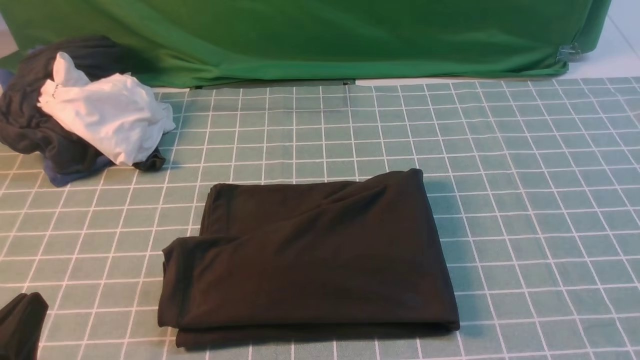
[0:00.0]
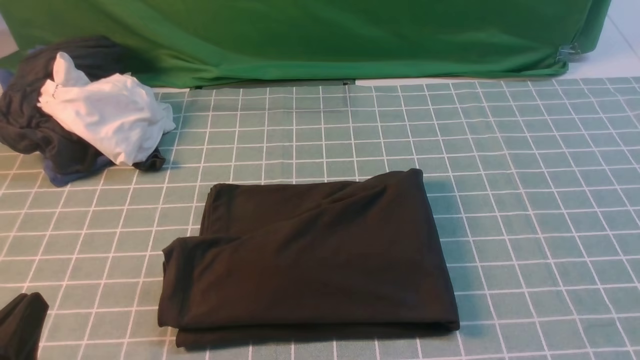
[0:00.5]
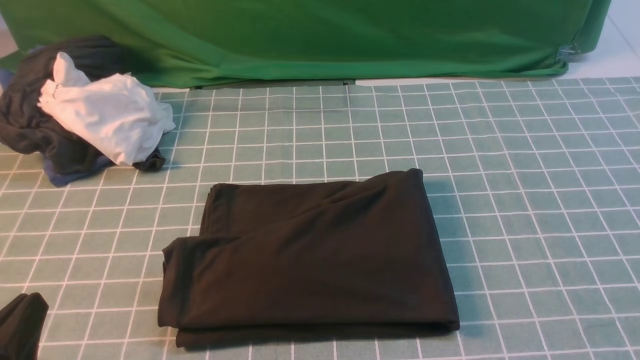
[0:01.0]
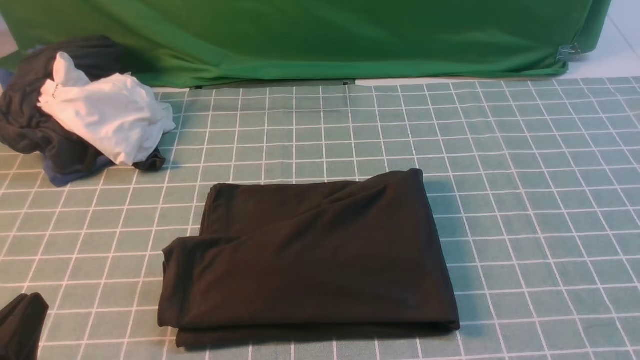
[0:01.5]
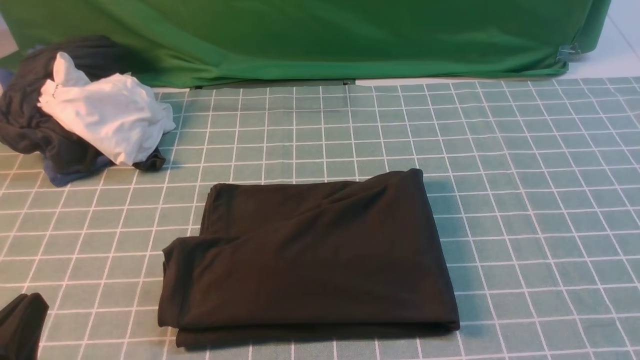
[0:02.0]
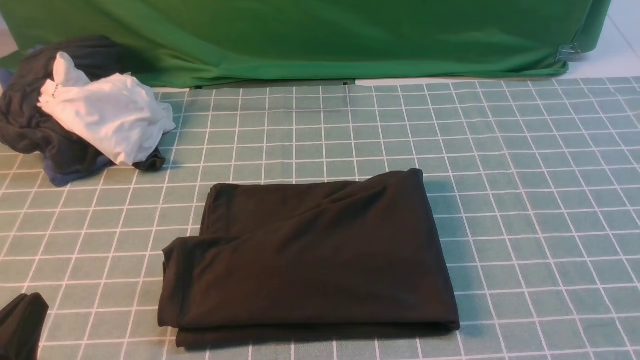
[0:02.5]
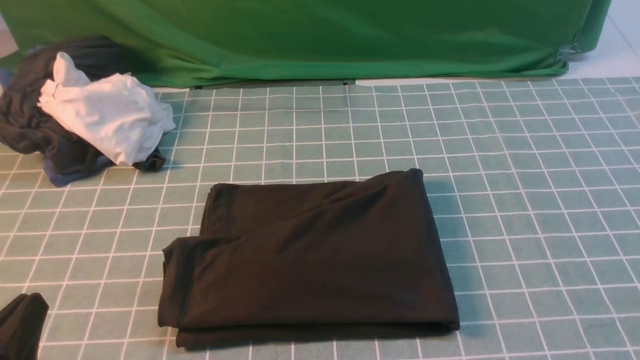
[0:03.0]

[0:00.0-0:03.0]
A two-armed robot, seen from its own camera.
0:01.5 to 0:03.0: Both grippers stay about where they are.

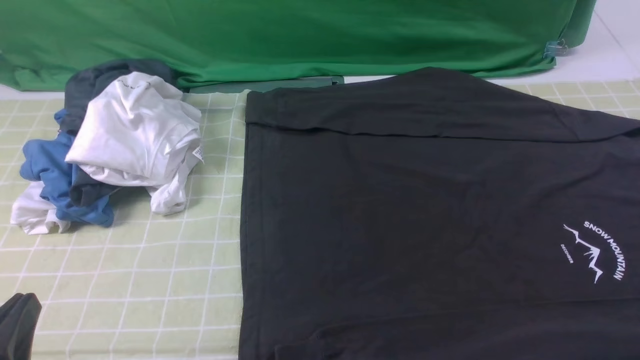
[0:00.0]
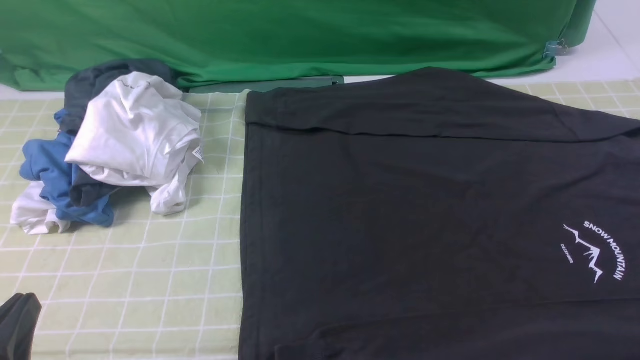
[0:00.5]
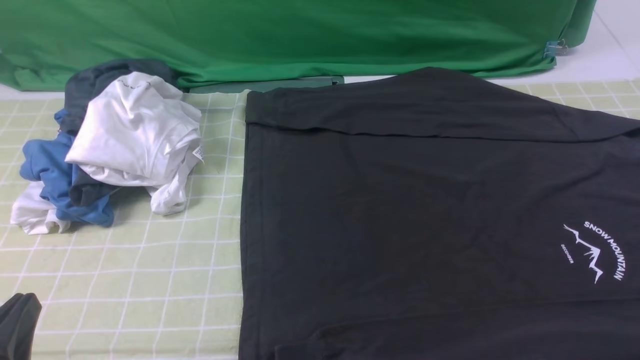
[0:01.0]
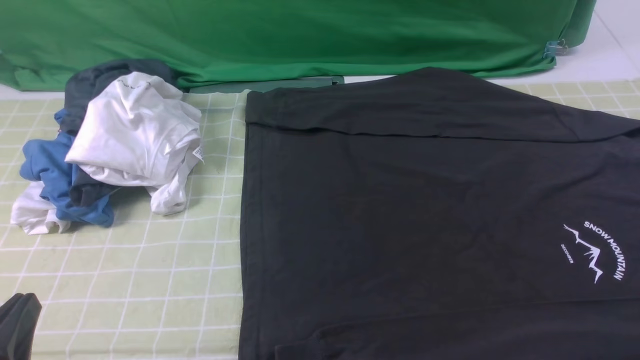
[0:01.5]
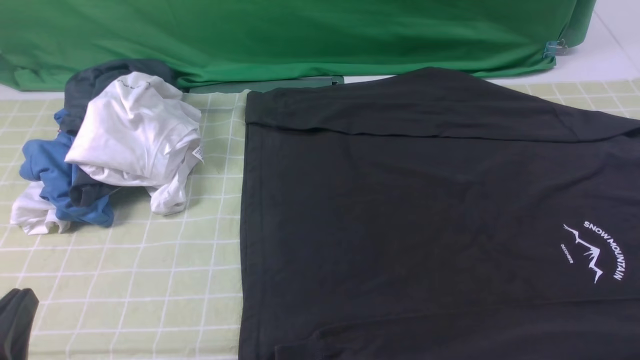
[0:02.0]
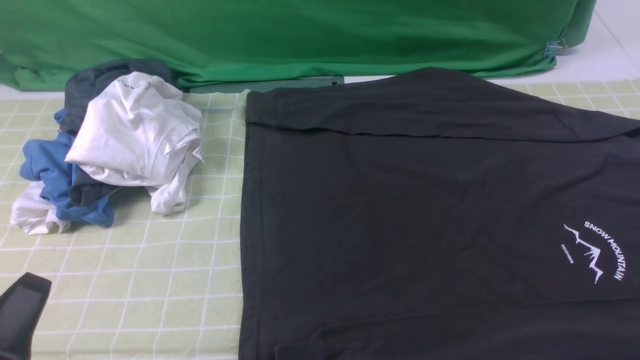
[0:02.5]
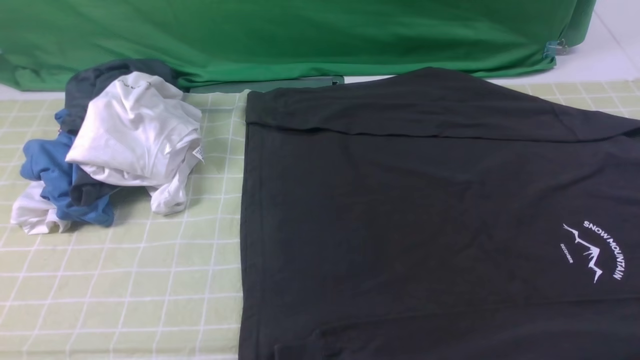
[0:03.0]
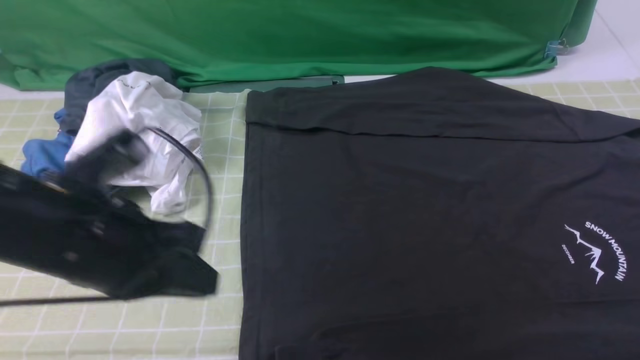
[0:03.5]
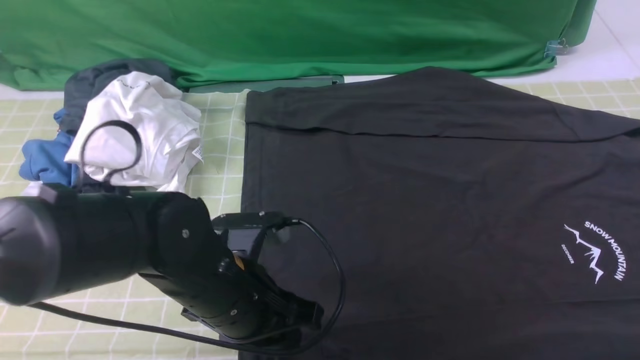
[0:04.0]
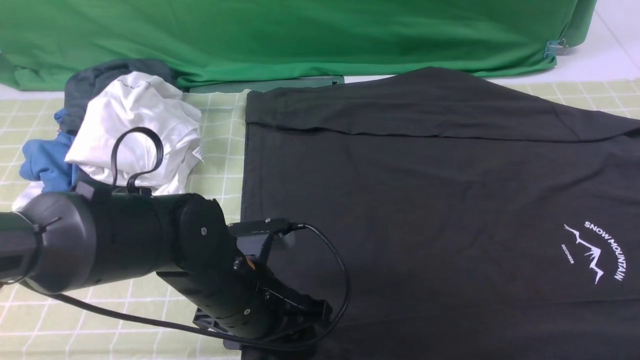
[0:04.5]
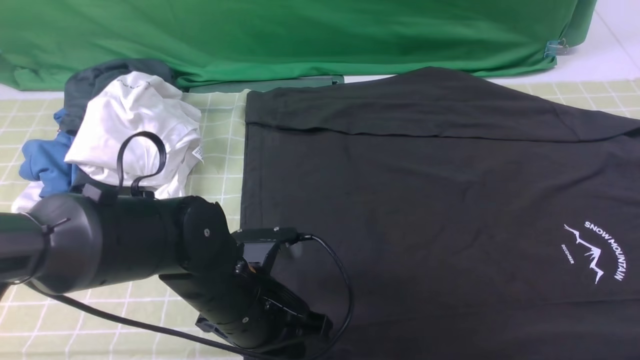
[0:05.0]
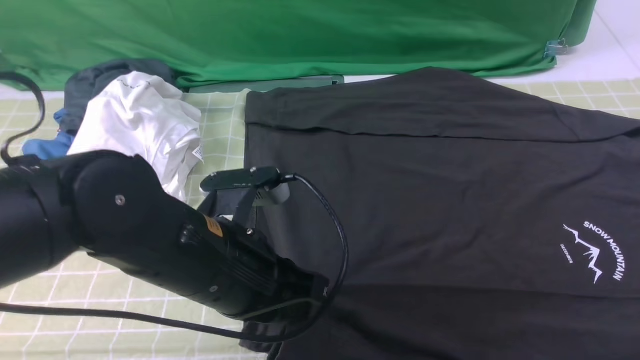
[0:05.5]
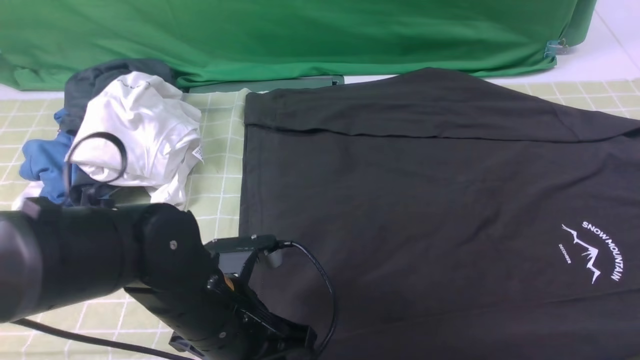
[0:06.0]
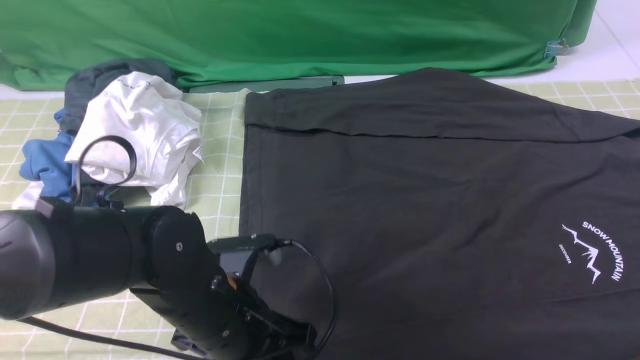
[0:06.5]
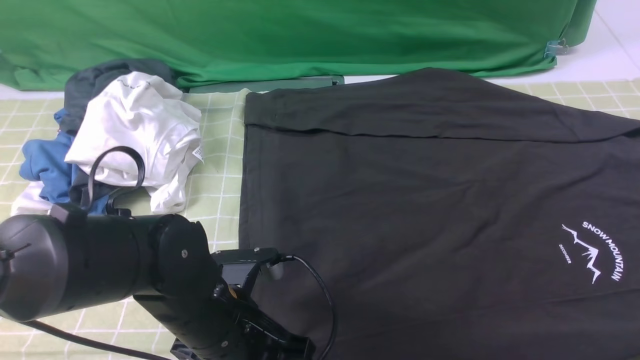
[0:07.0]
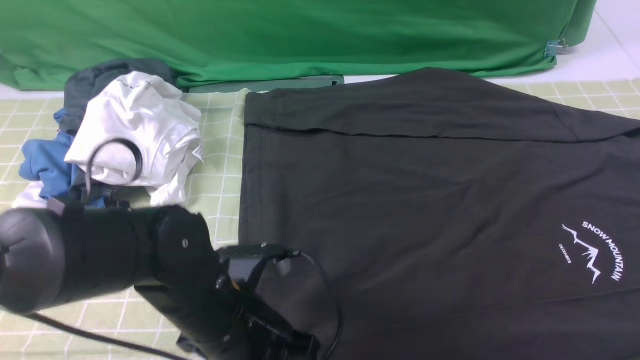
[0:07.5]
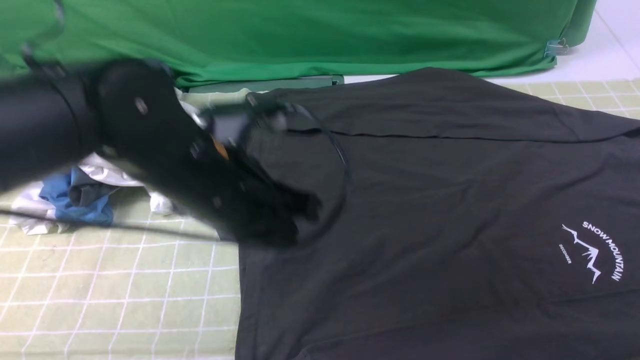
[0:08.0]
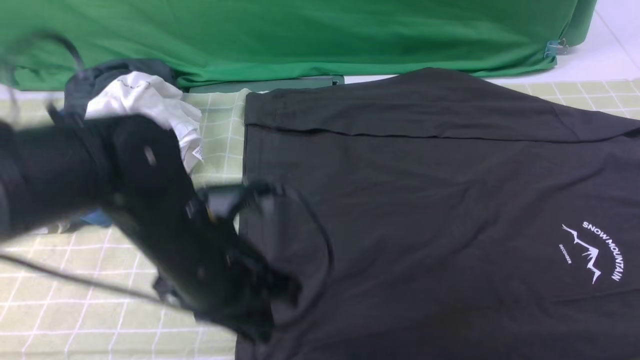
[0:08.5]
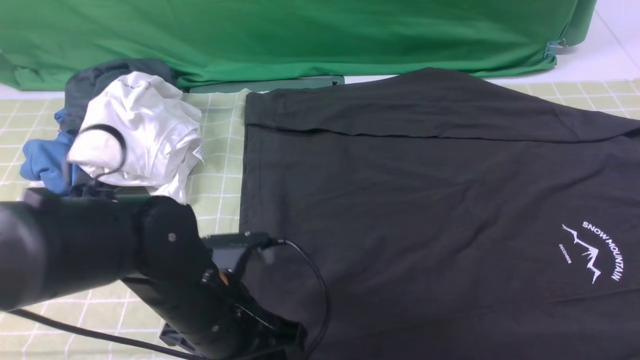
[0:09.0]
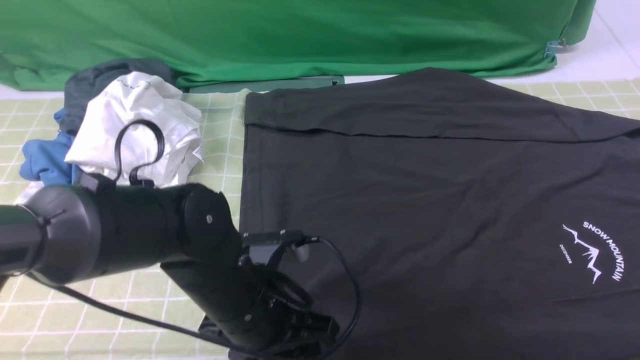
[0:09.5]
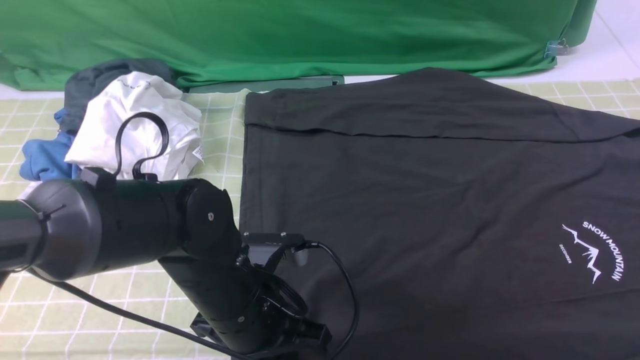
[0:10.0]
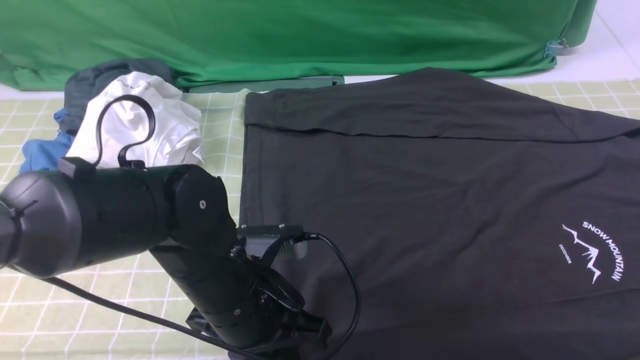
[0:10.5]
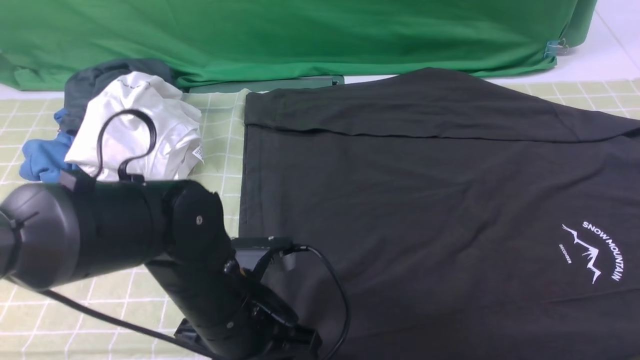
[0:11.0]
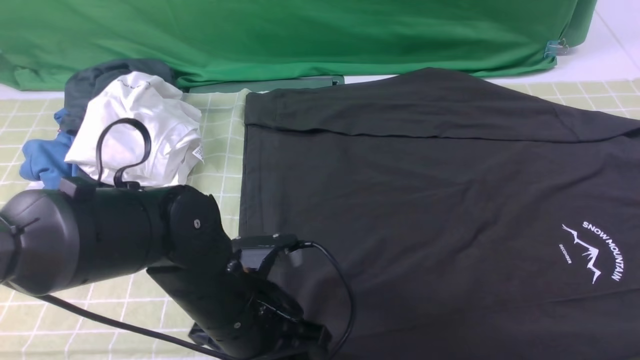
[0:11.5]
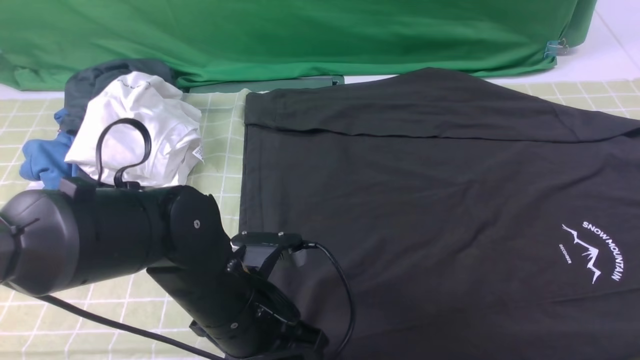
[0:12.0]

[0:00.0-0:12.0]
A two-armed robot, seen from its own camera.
Step, 0:00.0 to 0:11.5: use the left arm to clamp the cuff closest to it.
0:02.0 to 0:04.0: The right gripper shifts approximately 20 cm upward and forward, while the left gripper shifts roughly 20 cm forward and to the right, and opens its fingers.
0:04.0 to 0:06.0: The left gripper closes its fingers.
0:06.0 to 0:08.0: The left gripper is displaced upward and forward by some 10 cm.
0:08.0 to 0:10.0: The left gripper heads downward, covering approximately 10 cm, and opens and closes again.
0:10.0 to 0:12.0: The grippers move only a little.

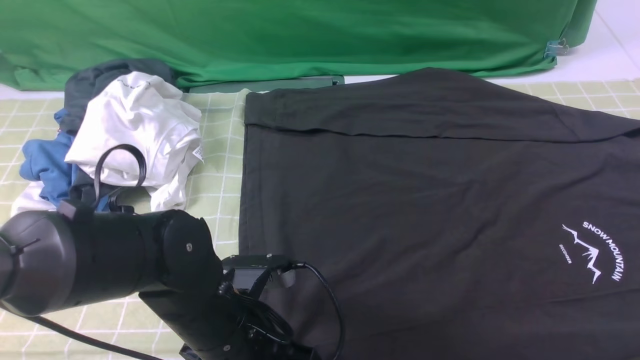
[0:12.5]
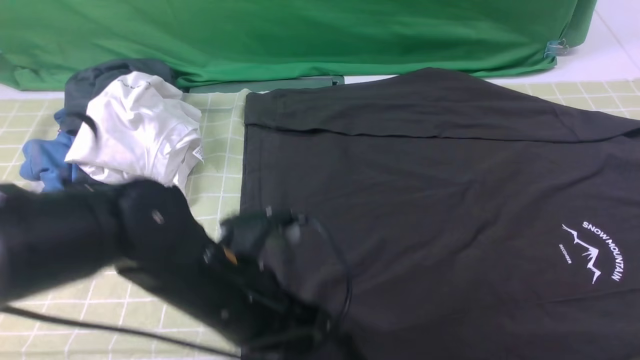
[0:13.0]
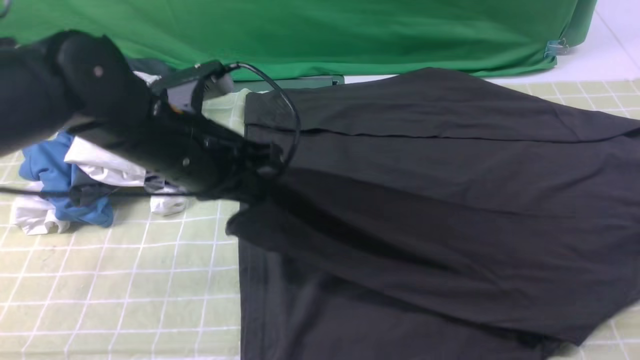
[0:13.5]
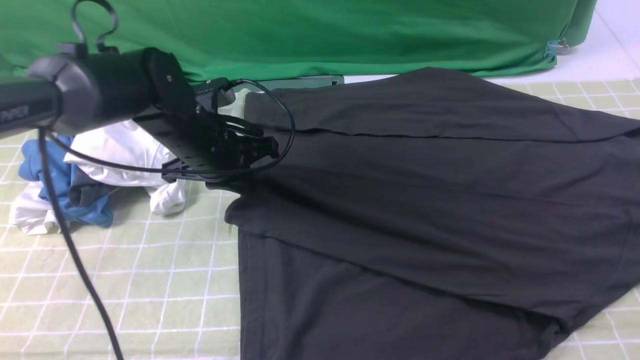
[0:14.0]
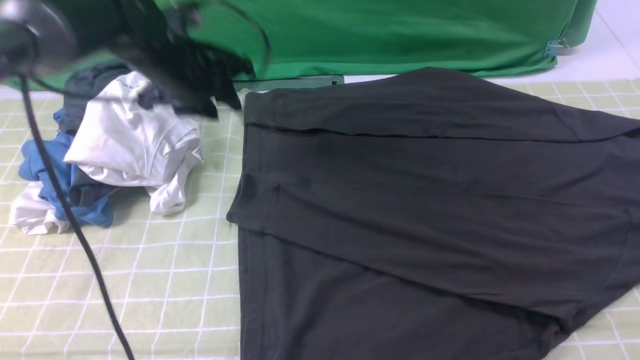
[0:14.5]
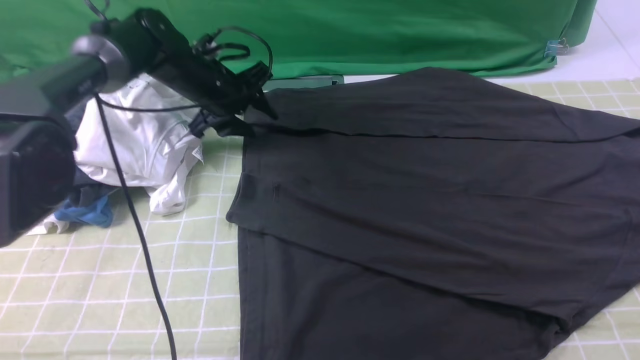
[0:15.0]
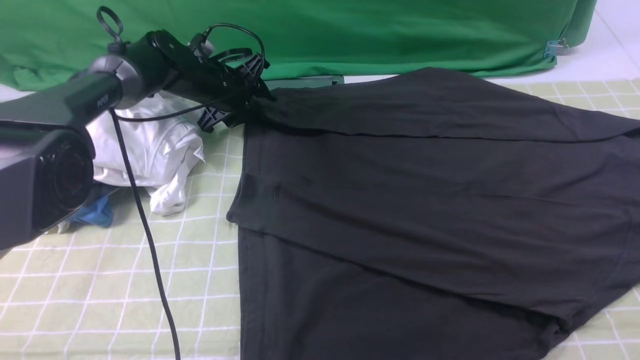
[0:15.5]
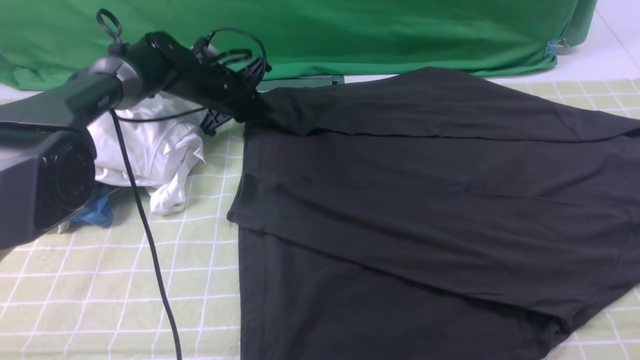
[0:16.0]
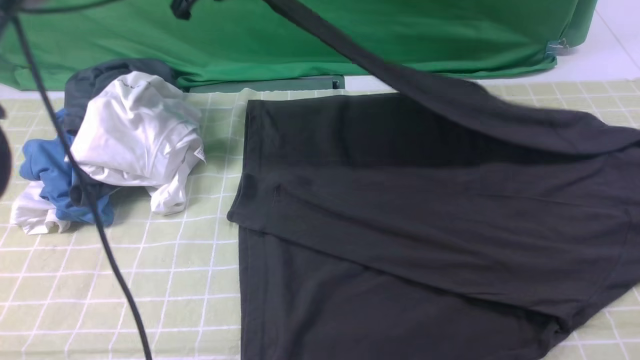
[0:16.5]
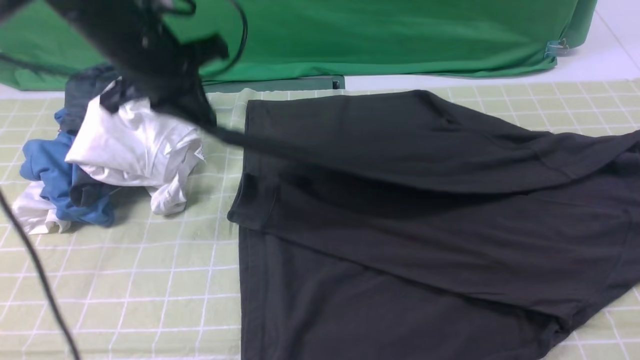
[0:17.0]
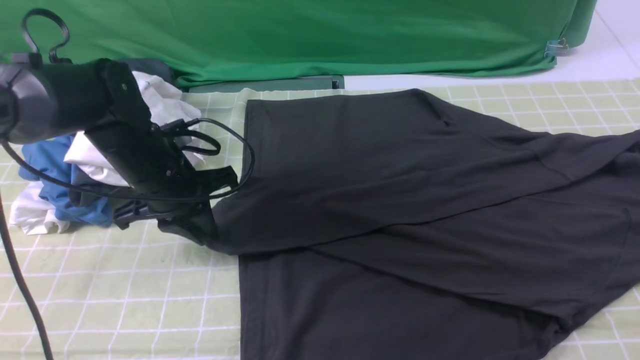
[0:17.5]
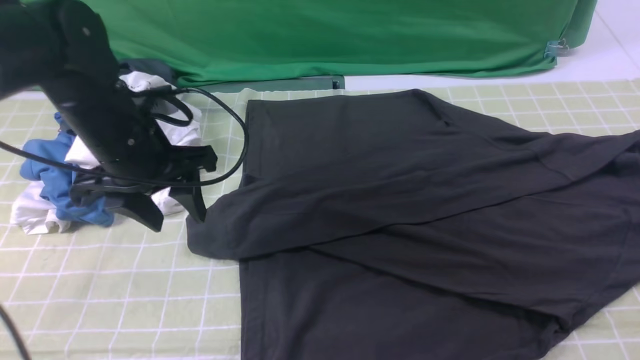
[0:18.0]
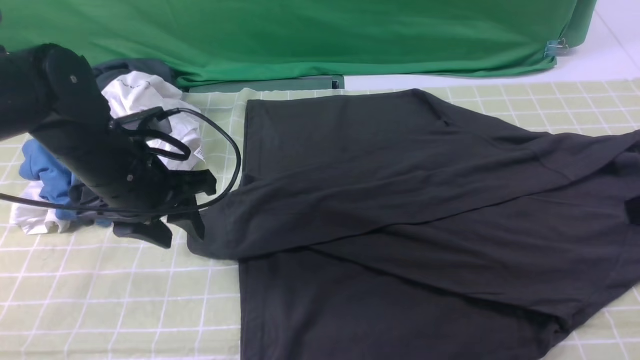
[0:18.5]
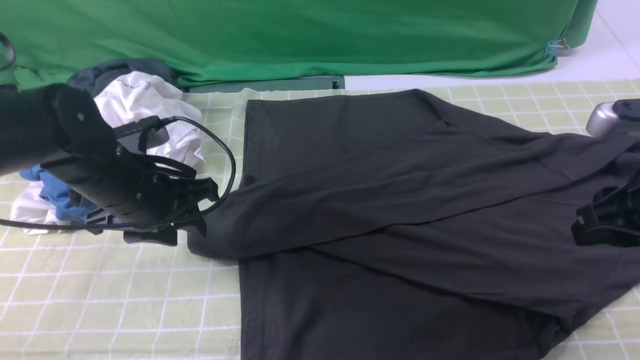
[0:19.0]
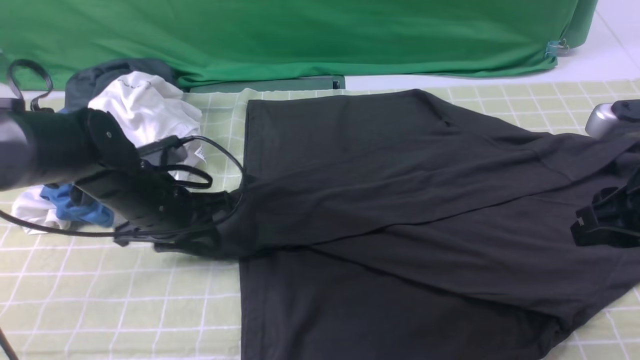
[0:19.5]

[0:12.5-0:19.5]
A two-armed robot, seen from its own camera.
Step, 0:12.5 to 0:14.0: use the left arm to drag and place the cuff at the centered position on the left edge of the fabric.
Step, 0:14.5 to 0:15.5: use the left arm to clamp the cuff farthest from it.
0:12.5 to 0:14.5: The left gripper heads forward, covering about 25 cm, and closes and opens again.
0:14.5 to 0:16.0: The left gripper shifts about 10 cm forward and downward, and closes its fingers.
0:16.0 to 0:17.5: The left gripper goes approximately 20 cm backward.
0:17.5 to 0:19.5: The right gripper travels forward and downward by about 10 cm, while the left gripper opens and closes again.
